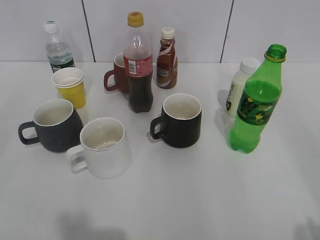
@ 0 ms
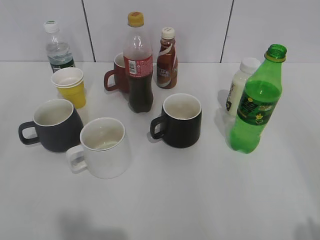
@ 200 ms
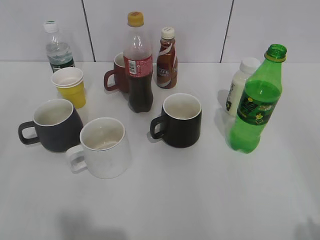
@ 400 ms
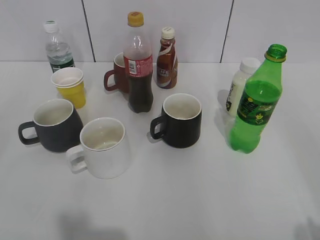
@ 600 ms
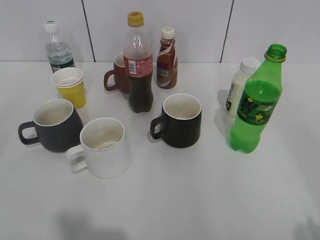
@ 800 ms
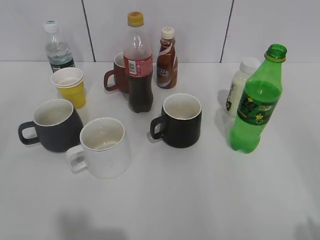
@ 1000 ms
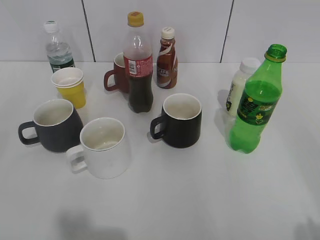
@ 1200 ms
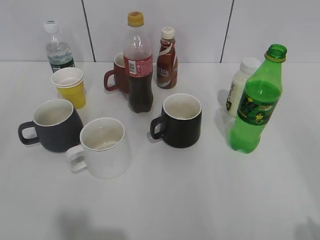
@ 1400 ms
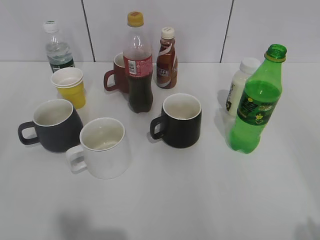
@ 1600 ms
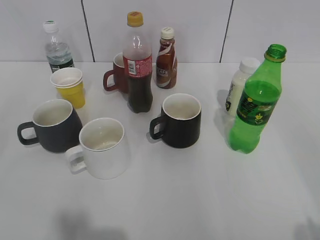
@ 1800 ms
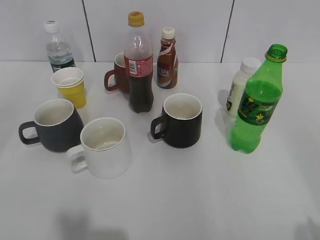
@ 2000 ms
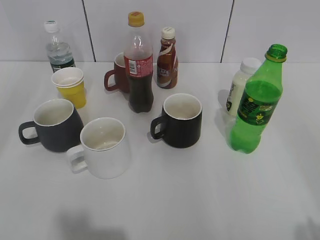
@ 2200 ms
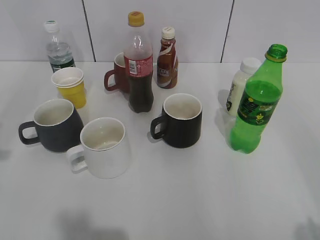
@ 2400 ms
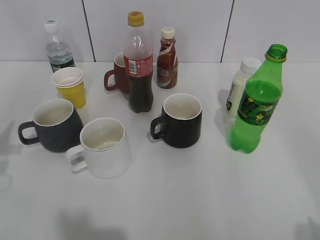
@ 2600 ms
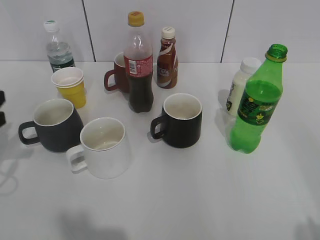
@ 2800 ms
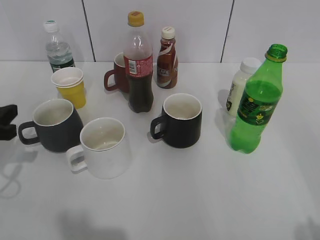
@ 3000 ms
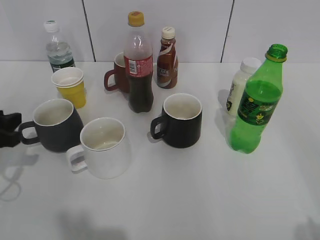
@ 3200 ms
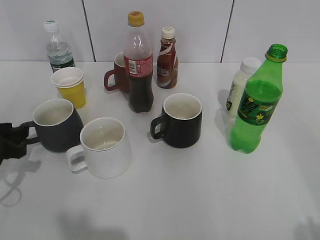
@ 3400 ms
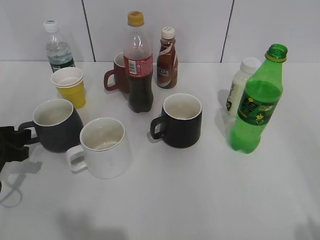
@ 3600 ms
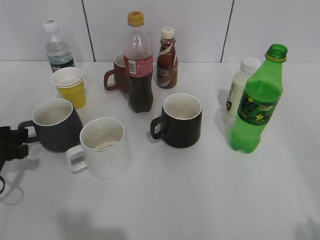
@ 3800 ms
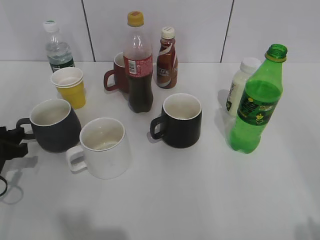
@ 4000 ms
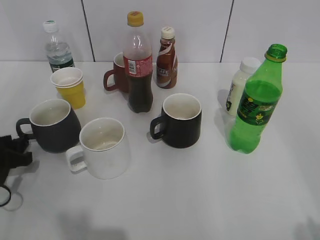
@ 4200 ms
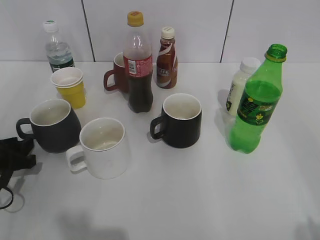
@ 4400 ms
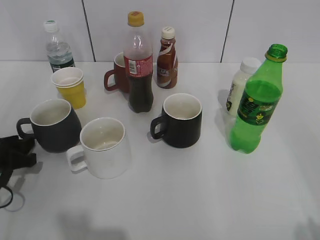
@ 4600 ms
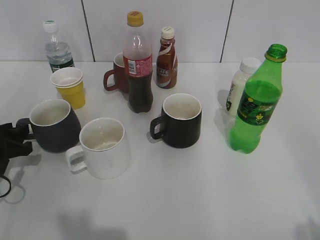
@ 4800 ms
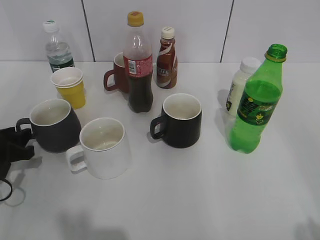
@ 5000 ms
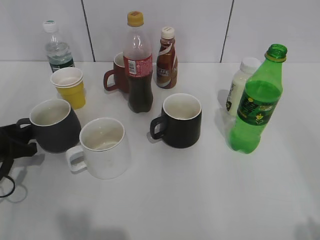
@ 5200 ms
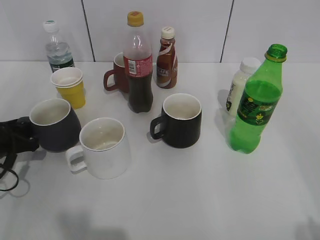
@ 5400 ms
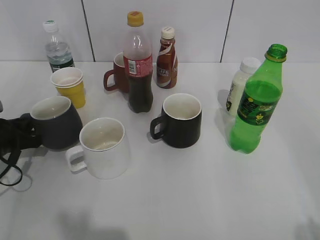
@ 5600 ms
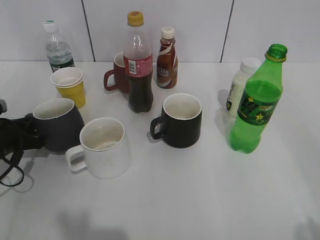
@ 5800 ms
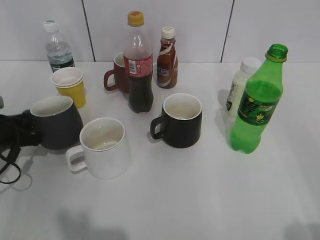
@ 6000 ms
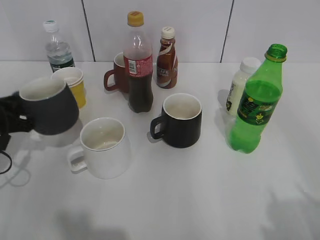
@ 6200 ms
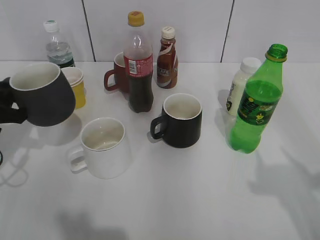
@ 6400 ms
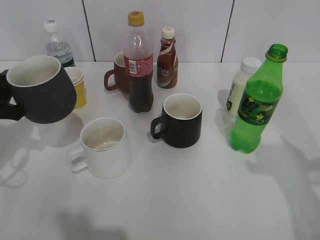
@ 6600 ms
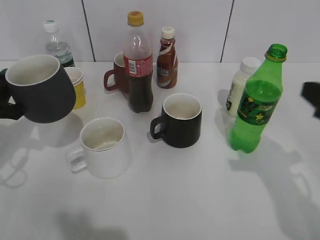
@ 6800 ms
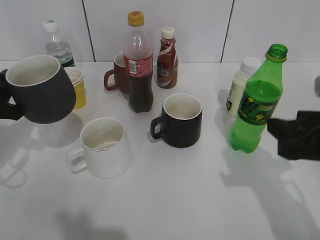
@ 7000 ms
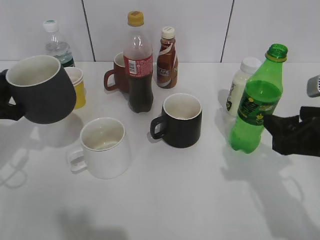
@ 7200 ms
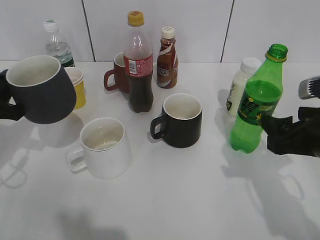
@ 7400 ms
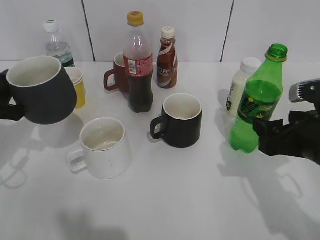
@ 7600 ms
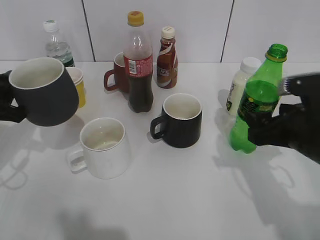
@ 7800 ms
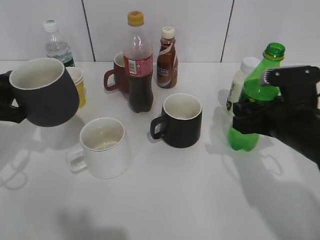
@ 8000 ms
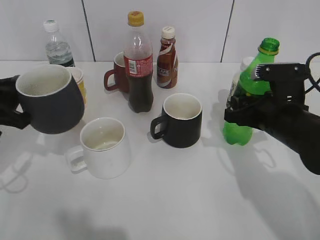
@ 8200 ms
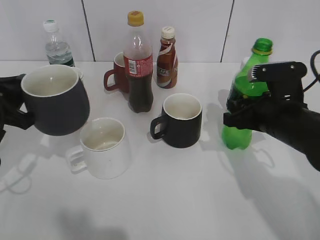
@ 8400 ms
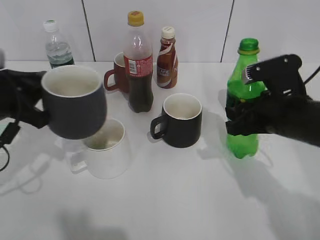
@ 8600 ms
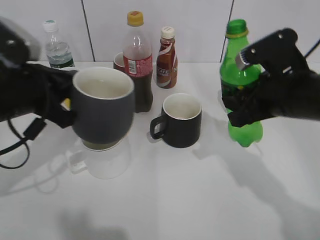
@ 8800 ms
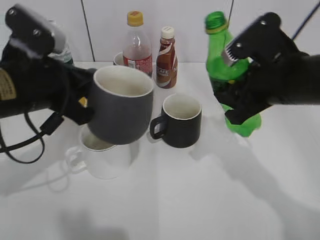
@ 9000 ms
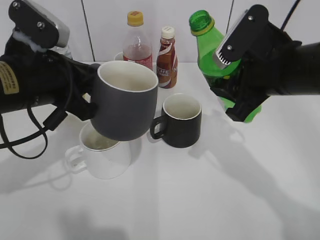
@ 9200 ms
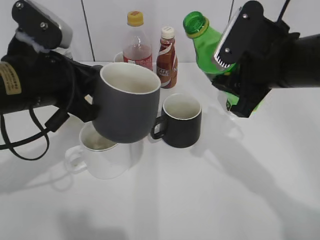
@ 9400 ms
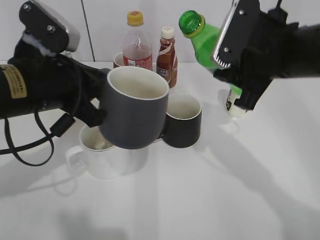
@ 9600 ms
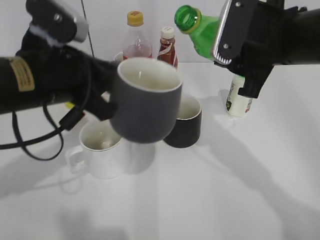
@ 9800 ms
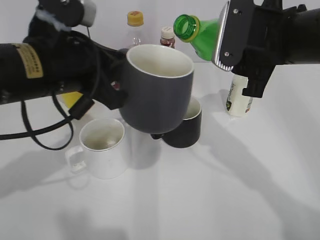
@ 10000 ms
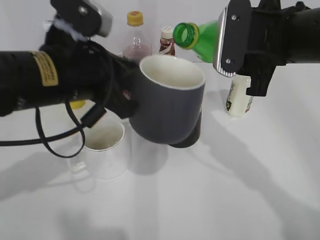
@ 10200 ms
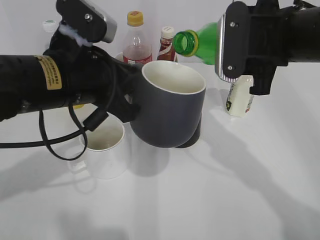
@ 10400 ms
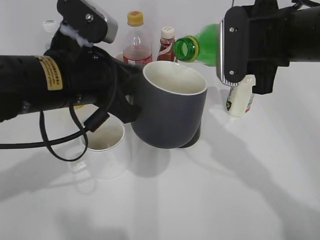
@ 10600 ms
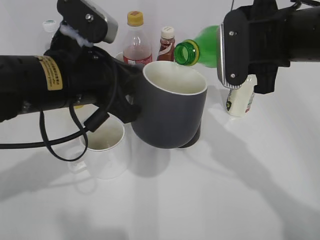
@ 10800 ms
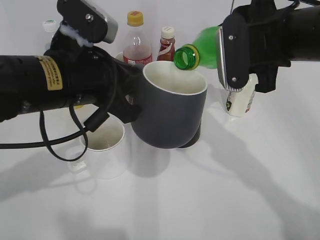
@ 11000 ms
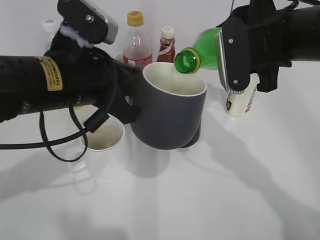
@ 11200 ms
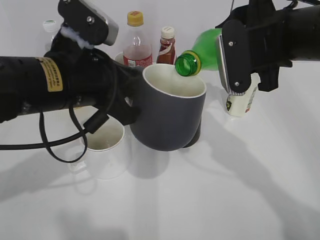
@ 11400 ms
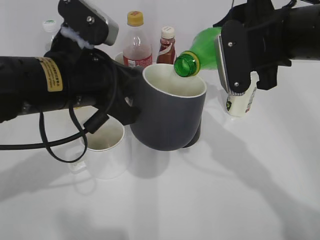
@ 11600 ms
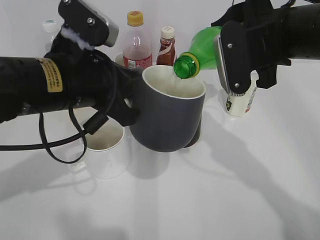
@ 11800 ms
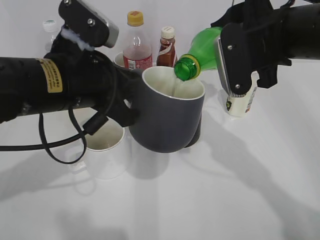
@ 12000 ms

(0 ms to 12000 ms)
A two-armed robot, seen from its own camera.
Step, 2800 ms - 5600 ms: Grasp the grey cup with left gripper.
Step, 6000 ms - 6600 ms: Lift the grey cup with left gripper.
Step, 7000 ms - 8400 ms: Grasp the bottle with sprite with right gripper.
1600 ms - 3000 ms: The left gripper travels forward and downward by about 30 cm, and opens.
3000 ms - 4400 ms: The left gripper travels downward by approximately 10 cm.
4400 ms - 6000 ms: The left gripper closes up.
6000 ms - 7600 ms: The left gripper shifts approximately 10 cm upward, while the right gripper shifts roughly 25 cm forward and downward, and opens its fingers.
7600 ms - 9000 ms: The left gripper travels to the right and upward by some 15 cm, while the right gripper moves to the left, upward and forward, approximately 10 cm, and closes its fingers.
9000 ms - 10400 ms: The right gripper changes place by roughly 5 cm. The left gripper moves to the right, approximately 5 cm.

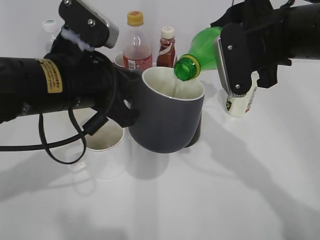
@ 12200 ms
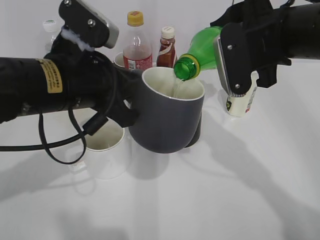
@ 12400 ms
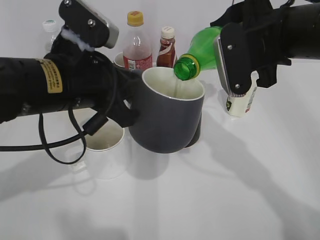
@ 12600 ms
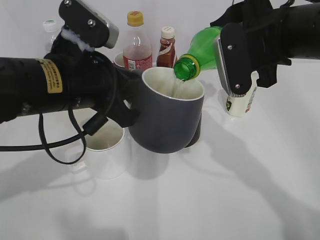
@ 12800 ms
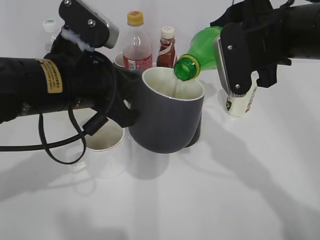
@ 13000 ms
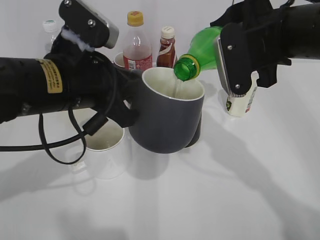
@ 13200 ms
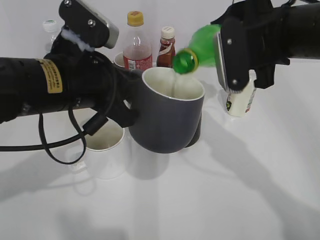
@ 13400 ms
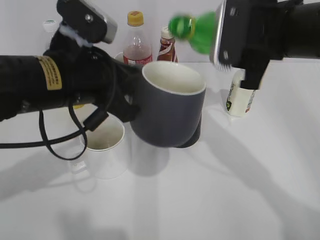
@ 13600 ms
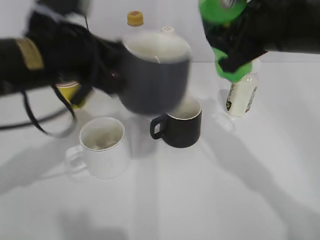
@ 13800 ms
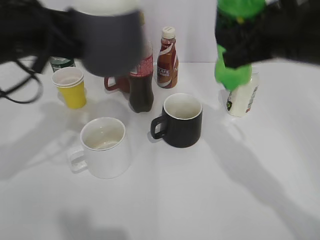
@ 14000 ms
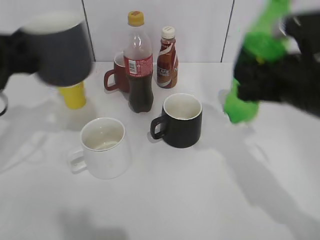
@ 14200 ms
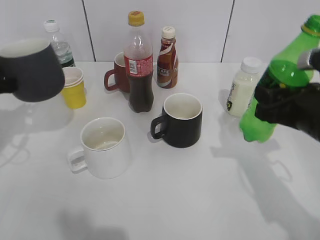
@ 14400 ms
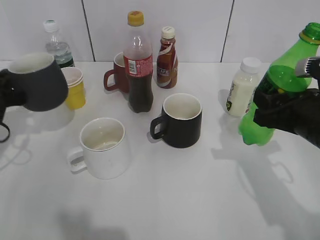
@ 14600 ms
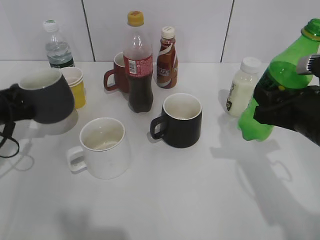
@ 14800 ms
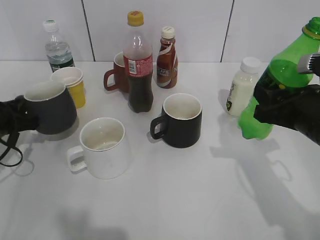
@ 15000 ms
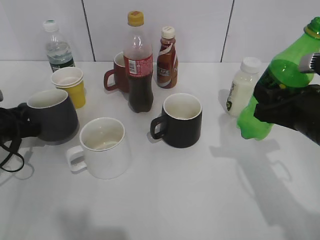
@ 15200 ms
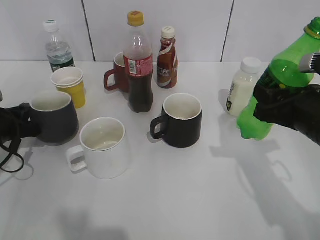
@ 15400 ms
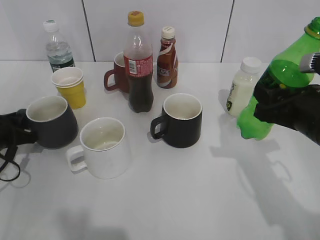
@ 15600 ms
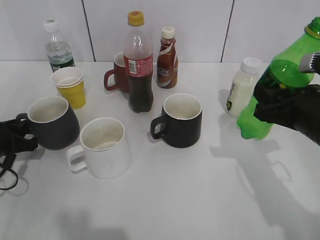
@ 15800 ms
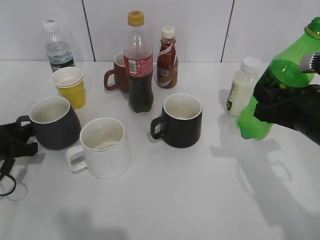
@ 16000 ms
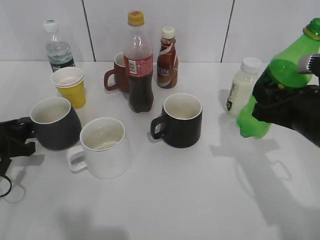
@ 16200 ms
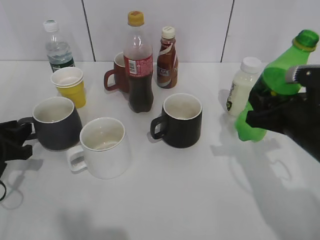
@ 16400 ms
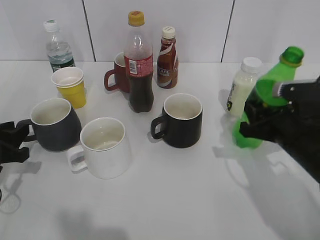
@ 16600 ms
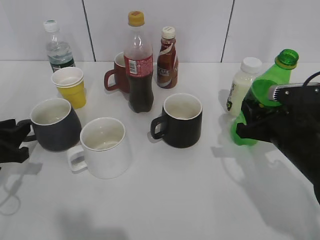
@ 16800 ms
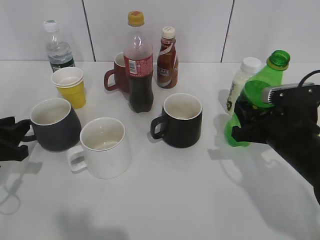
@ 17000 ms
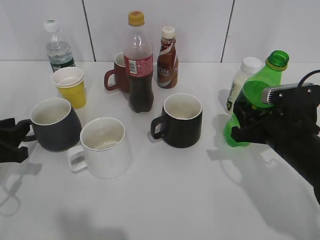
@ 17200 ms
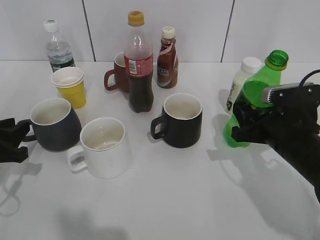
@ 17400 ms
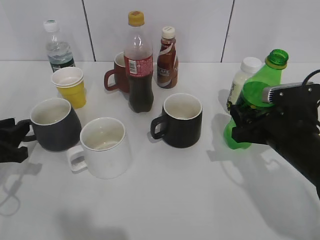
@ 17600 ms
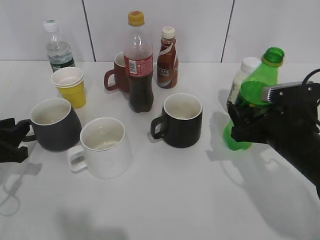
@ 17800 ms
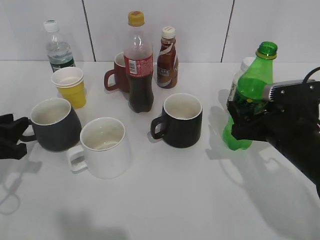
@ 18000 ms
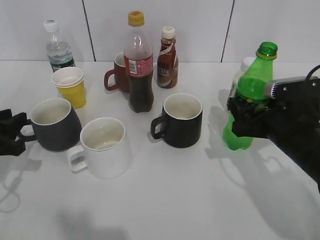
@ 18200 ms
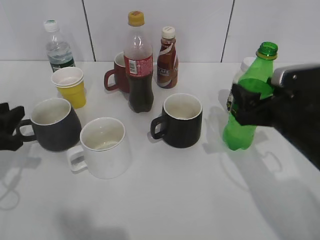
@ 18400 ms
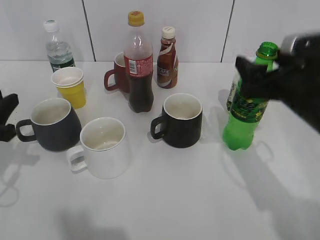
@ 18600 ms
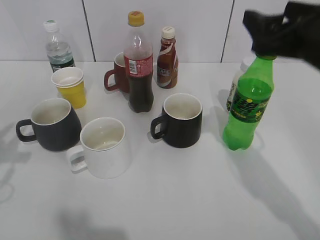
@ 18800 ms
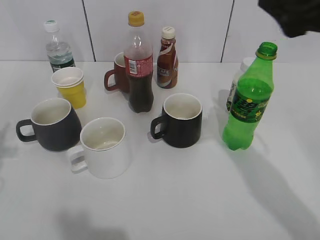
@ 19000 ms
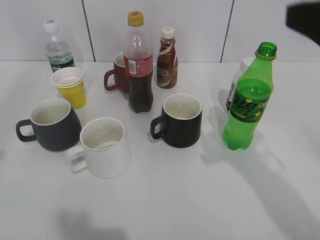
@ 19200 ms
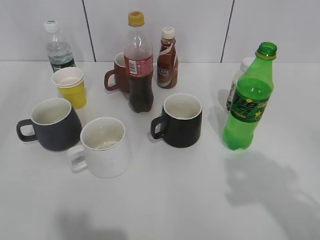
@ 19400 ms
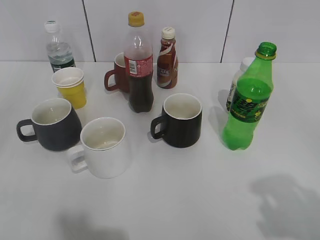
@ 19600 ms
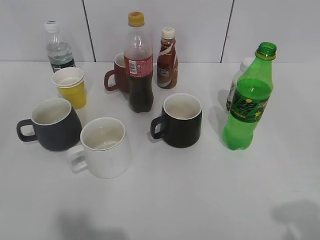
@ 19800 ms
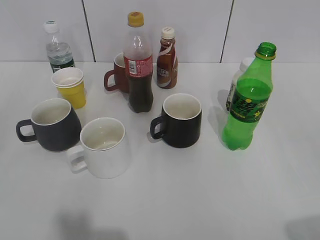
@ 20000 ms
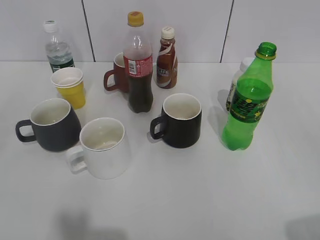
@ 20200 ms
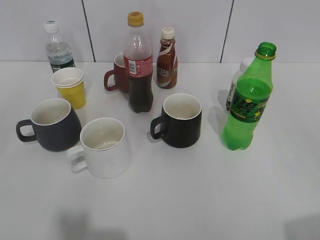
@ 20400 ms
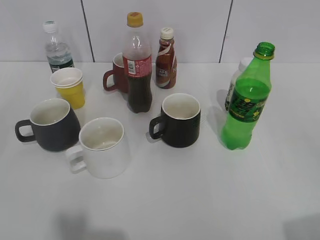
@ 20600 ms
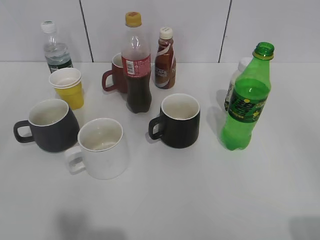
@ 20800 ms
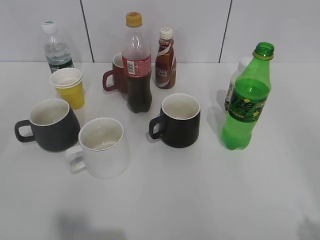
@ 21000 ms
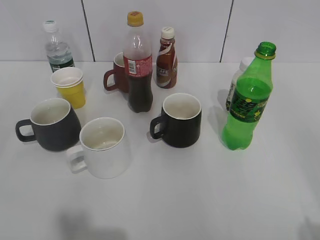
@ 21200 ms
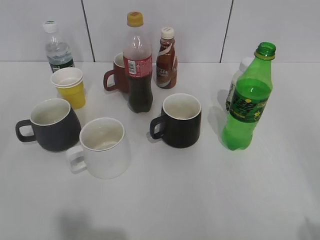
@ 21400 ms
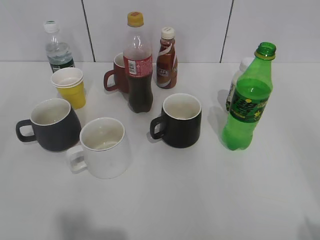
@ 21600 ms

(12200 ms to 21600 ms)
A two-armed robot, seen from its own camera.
Step, 13800 ms - 16000 ms: Place the grey cup on the table with left gripper.
Step, 16200 ms - 17600 ms: Place the sprite bottle on the table with right gripper.
13800 ms - 15400 ms: The right gripper heads downward, to the right and backward, covering about 15 cm. The left gripper heads downward and to the left, covering about 25 cm.
15400 ms - 17000 ms: The right gripper shifts roughly 5 cm downward, while the left gripper moves backward, some 5 cm, and opens up.
17000 ms - 18400 ms: The right gripper opens.
18400 ms - 20000 ms: The left gripper shifts about 25 cm backward and upward, while the right gripper moves backward, upward and to the right, approximately 30 cm.
